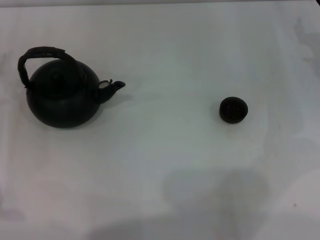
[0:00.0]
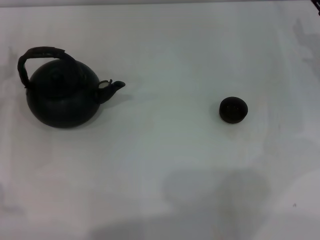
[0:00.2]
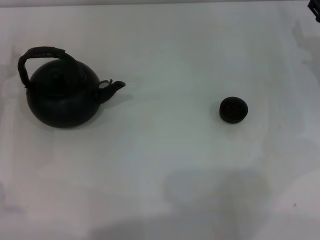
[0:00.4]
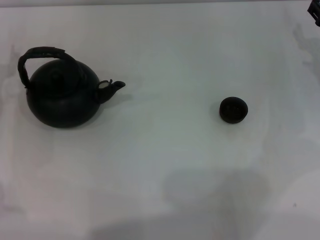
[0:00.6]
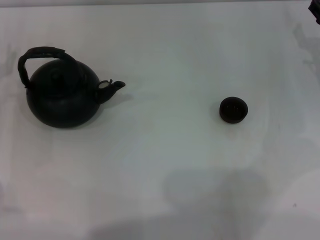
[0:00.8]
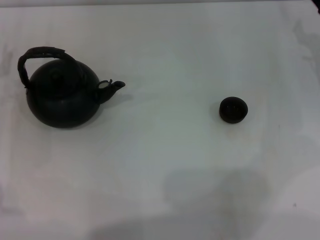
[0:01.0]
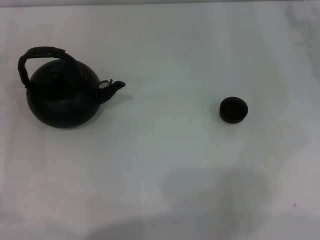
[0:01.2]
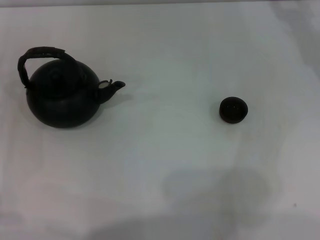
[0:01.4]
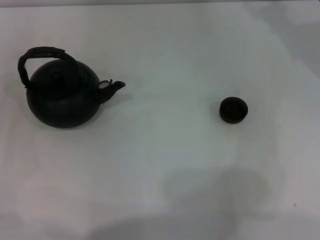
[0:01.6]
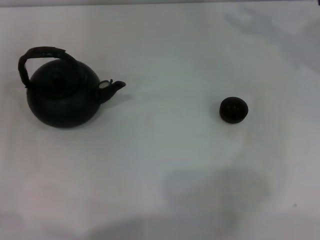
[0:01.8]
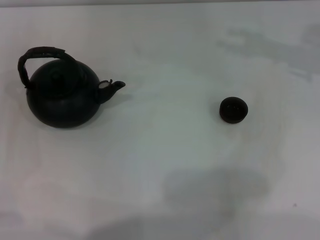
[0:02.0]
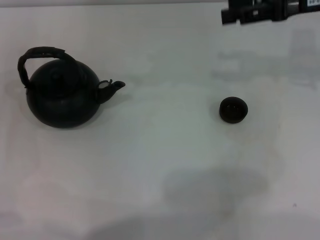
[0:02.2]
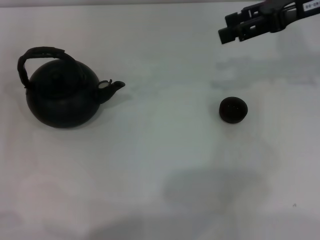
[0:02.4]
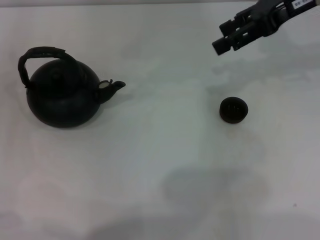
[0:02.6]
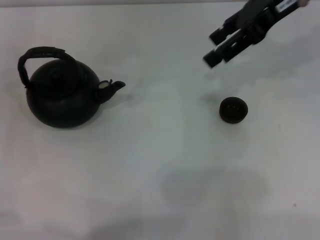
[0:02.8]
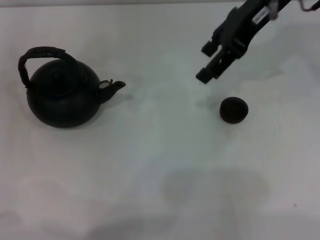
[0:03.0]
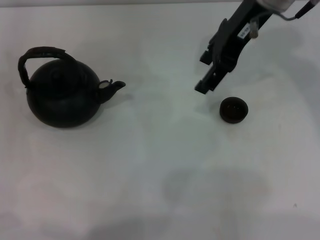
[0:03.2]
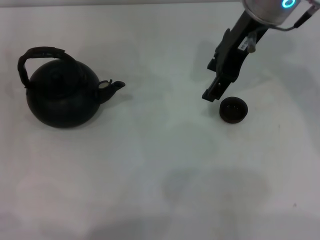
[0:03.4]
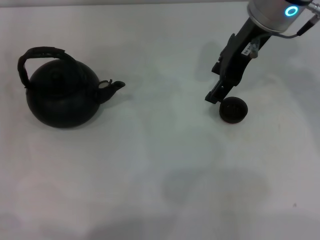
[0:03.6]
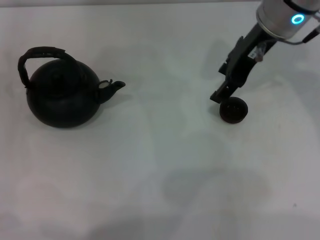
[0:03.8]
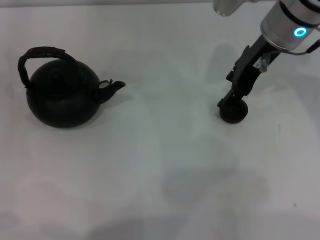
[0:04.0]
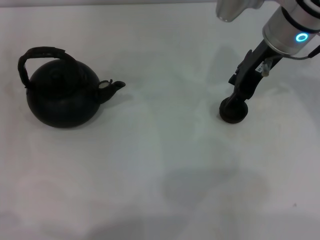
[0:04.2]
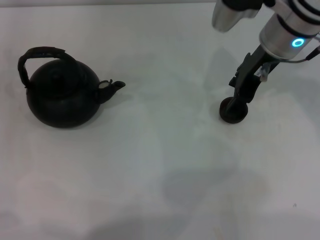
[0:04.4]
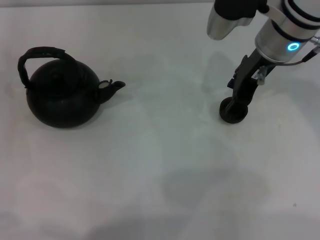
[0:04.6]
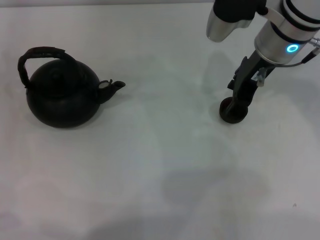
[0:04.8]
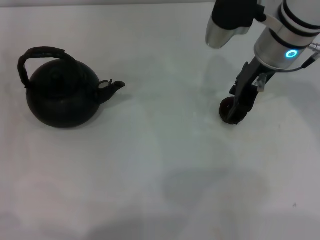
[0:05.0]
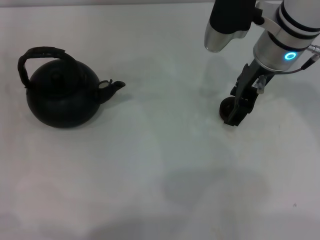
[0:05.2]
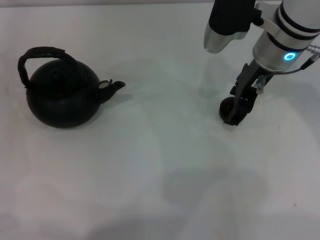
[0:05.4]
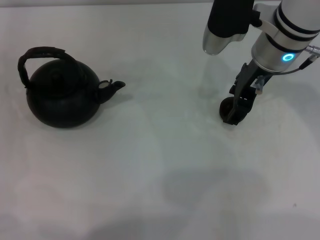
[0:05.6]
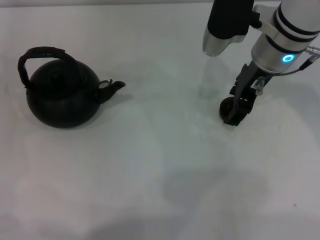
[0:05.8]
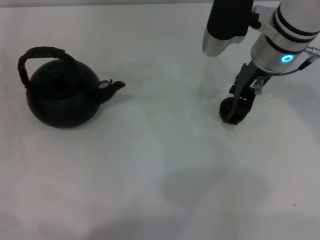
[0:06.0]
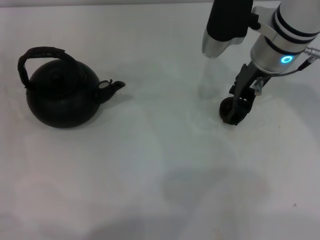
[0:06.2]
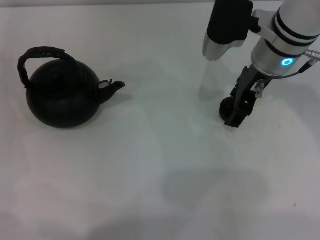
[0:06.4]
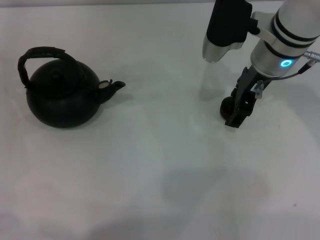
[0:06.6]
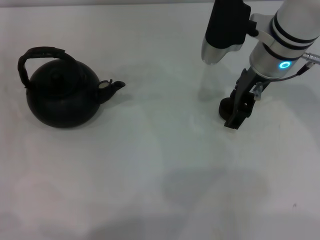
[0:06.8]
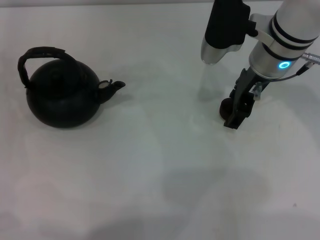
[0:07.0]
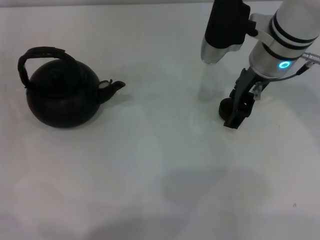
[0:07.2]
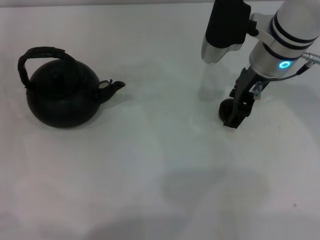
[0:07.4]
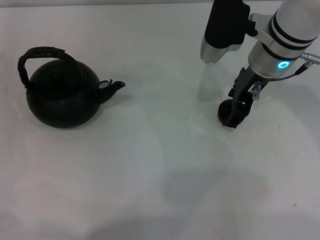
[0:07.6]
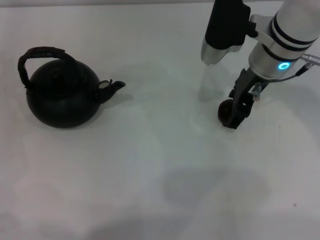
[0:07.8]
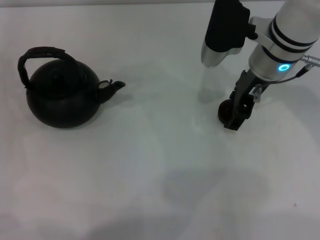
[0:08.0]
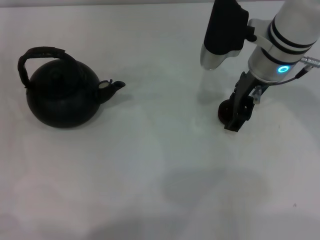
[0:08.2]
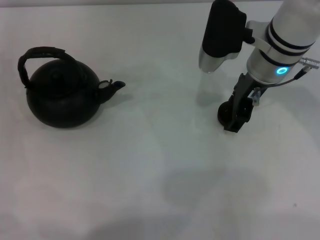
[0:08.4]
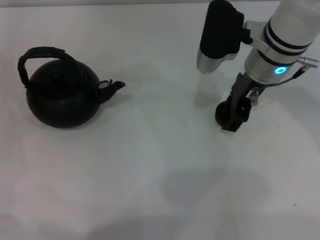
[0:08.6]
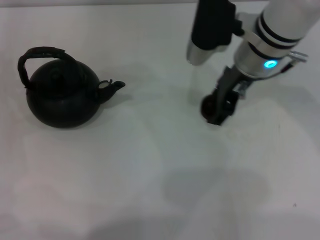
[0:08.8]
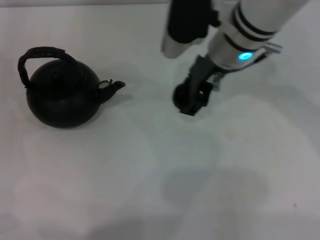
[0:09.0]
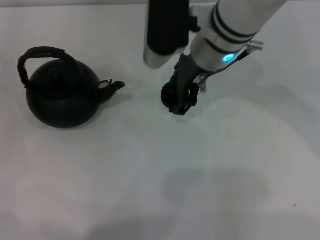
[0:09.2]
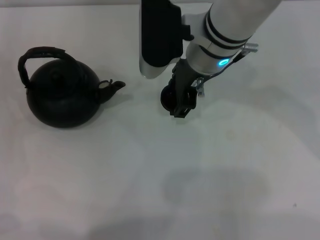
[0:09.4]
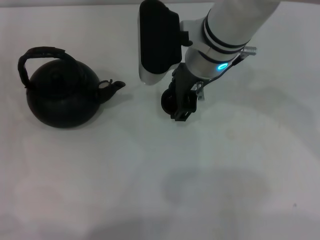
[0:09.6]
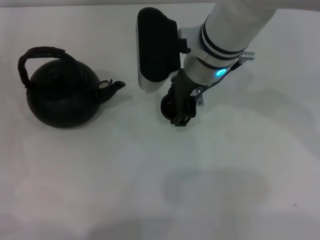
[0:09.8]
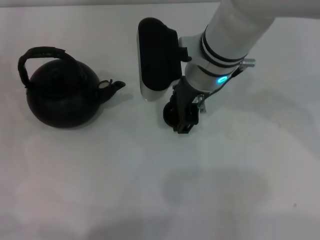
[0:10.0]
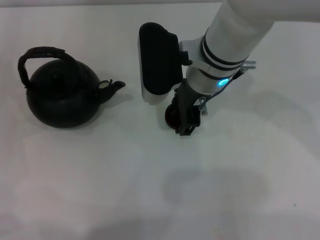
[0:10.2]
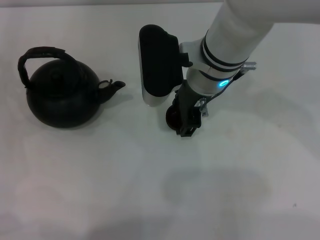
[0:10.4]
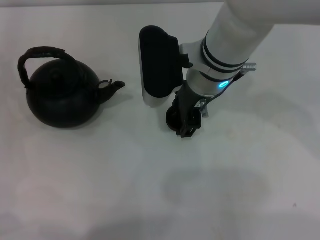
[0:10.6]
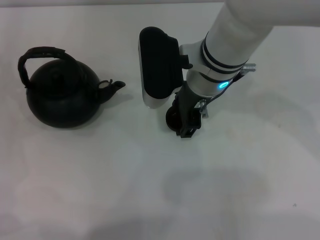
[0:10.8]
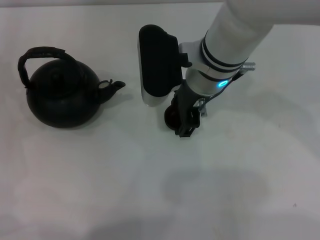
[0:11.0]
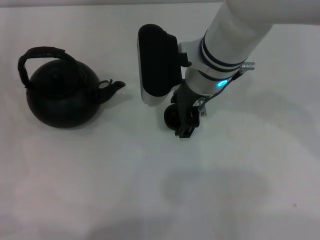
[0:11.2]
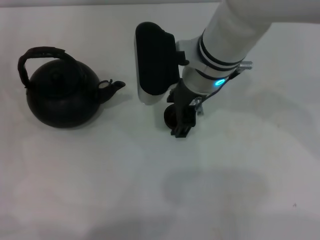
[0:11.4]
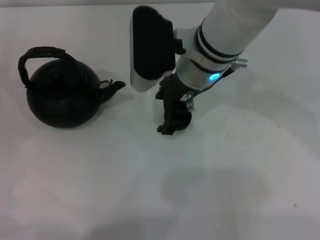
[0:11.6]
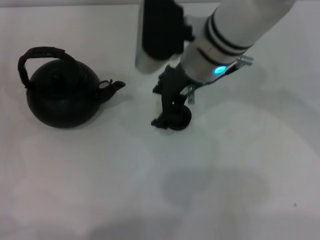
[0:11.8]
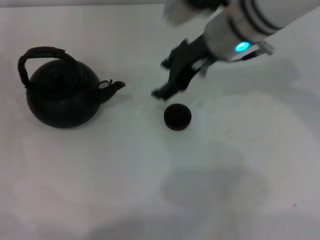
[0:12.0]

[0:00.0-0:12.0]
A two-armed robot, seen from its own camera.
Task of the whole recording: Grasp the handle of the teapot with one hand and pour tea into the teacup.
Step, 0:00.0 to 0:08.8: Pick up the teacup with the right gripper.
Step, 0:09.0 to 0:11.6: Place the teacup in the center of view with the right gripper.
0:01.6 to 0:03.0: The right gripper travels to the left and upward by roughly 15 cm.
0:03.0 to 0:04.4: The right gripper goes some 10 cm downward.
0:04.4 to 0:06.0: The grippers make only small movements.
0:06.0 to 0:07.6: Neither gripper changes place.
0:07.6 to 0:09.0: The right gripper travels to the left by some 5 cm.
0:09.0 to 0:10.4: There are only small adjustments of the grippers.
0:10.4 to 0:12.0: The right gripper moves roughly 5 cm.

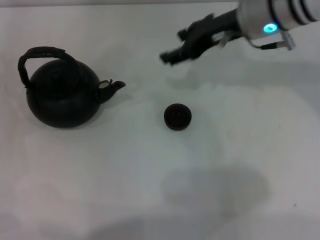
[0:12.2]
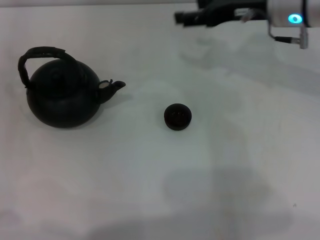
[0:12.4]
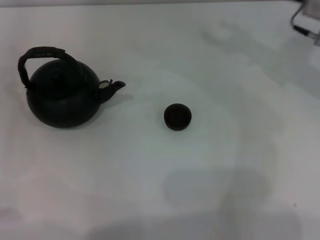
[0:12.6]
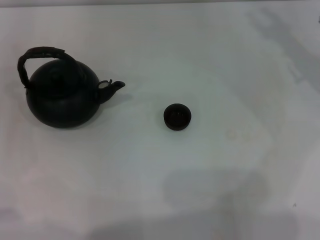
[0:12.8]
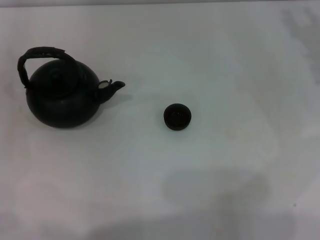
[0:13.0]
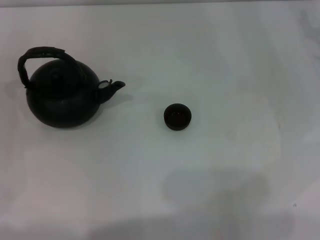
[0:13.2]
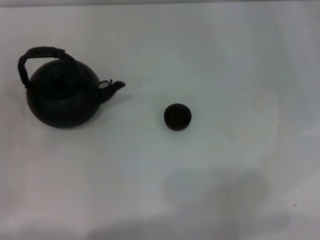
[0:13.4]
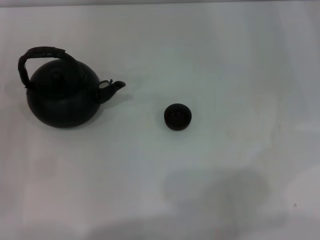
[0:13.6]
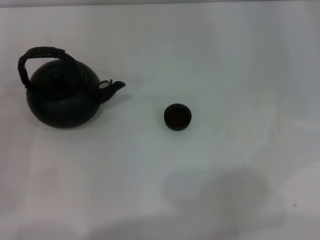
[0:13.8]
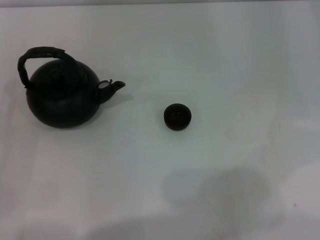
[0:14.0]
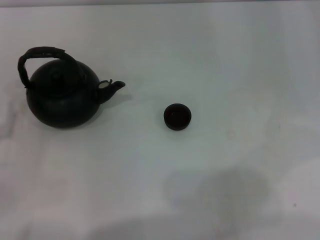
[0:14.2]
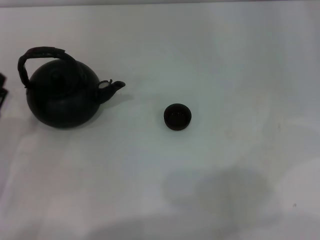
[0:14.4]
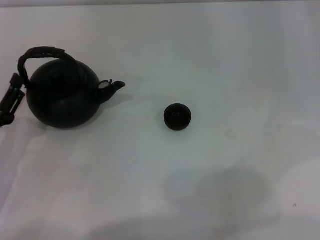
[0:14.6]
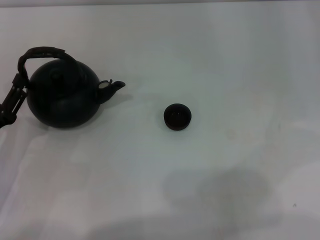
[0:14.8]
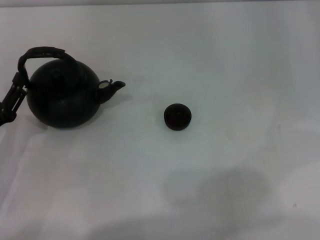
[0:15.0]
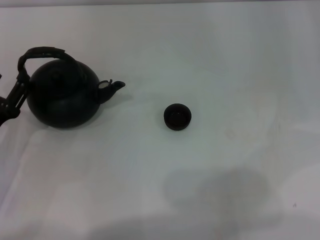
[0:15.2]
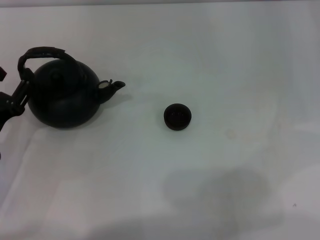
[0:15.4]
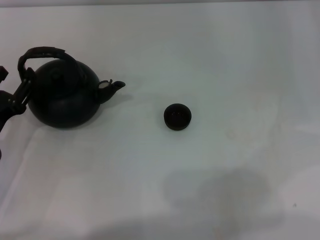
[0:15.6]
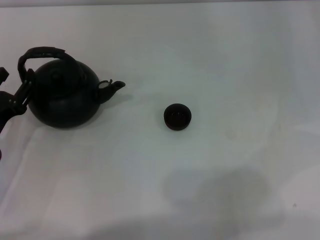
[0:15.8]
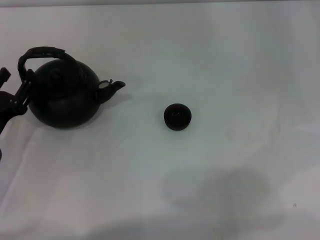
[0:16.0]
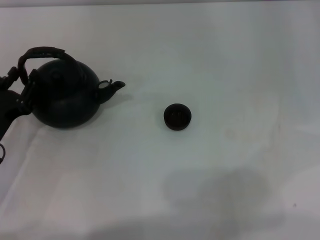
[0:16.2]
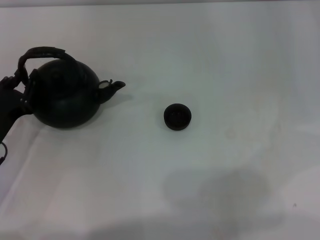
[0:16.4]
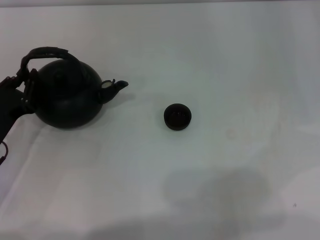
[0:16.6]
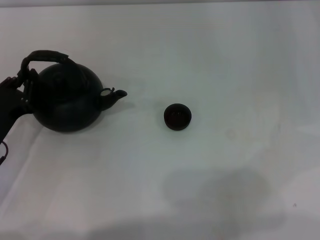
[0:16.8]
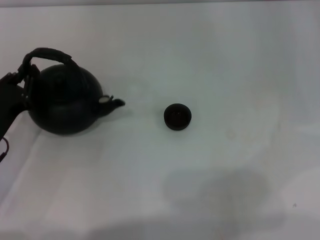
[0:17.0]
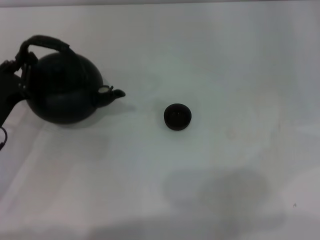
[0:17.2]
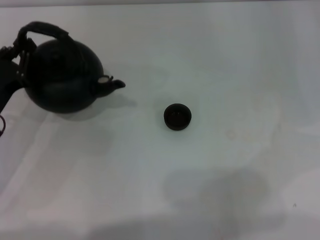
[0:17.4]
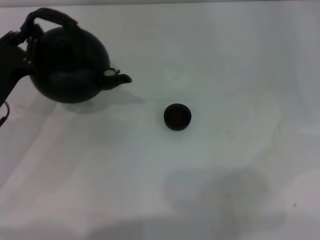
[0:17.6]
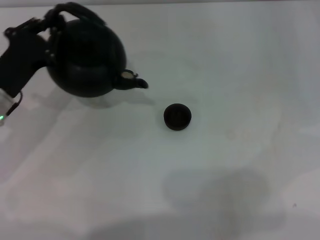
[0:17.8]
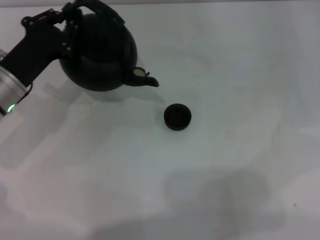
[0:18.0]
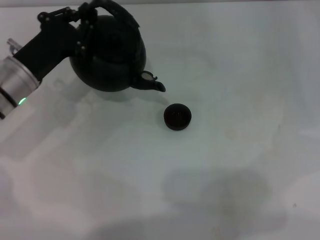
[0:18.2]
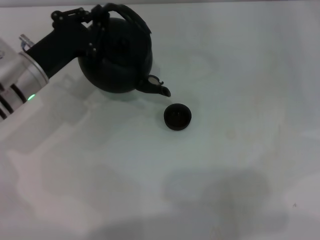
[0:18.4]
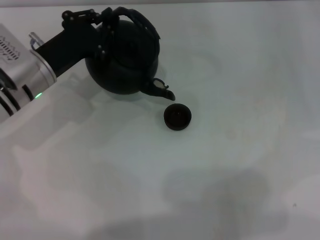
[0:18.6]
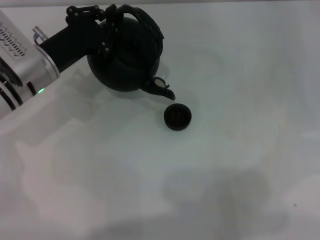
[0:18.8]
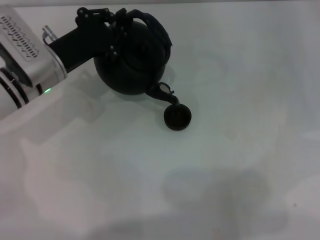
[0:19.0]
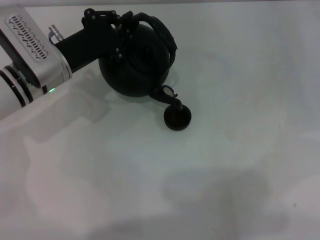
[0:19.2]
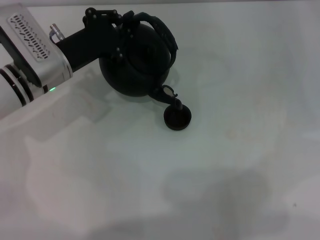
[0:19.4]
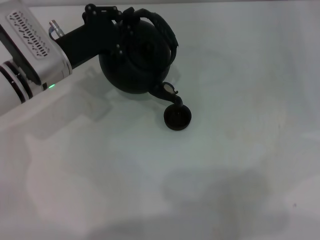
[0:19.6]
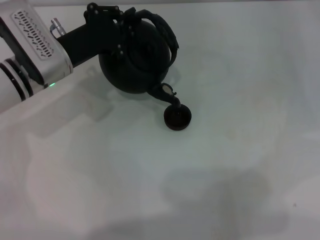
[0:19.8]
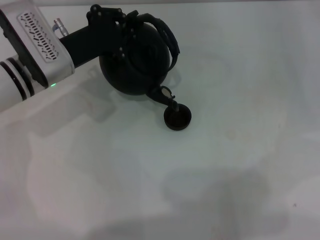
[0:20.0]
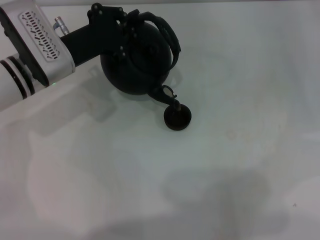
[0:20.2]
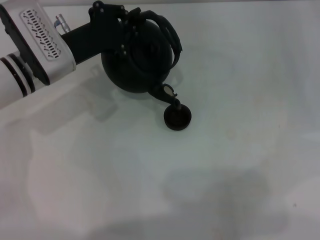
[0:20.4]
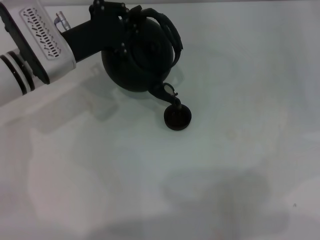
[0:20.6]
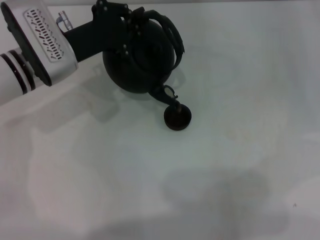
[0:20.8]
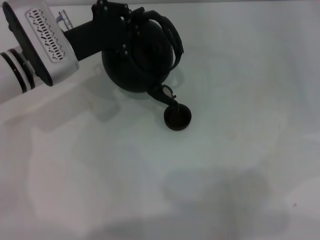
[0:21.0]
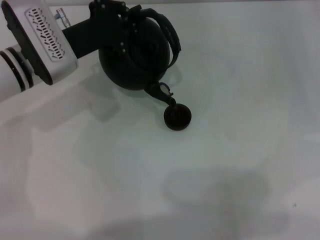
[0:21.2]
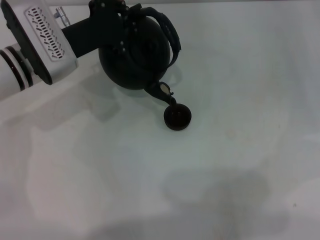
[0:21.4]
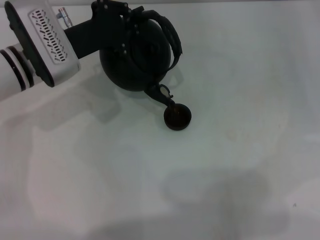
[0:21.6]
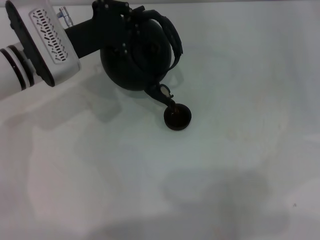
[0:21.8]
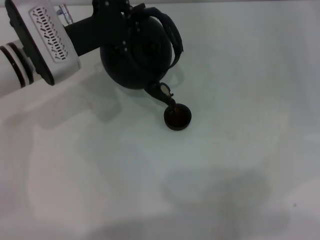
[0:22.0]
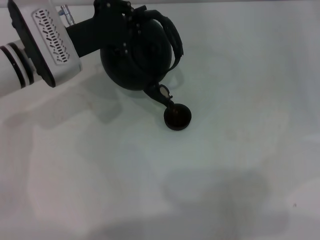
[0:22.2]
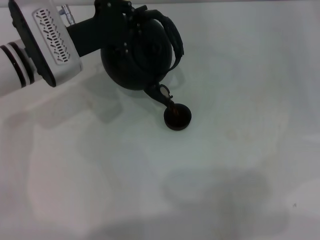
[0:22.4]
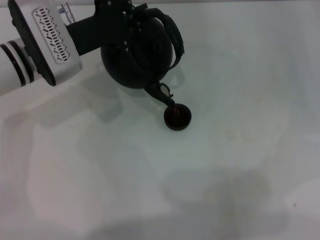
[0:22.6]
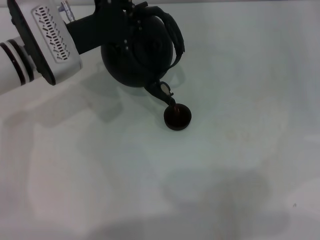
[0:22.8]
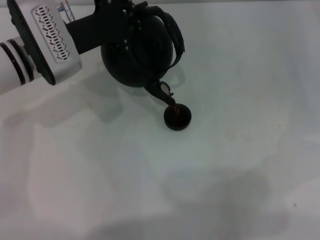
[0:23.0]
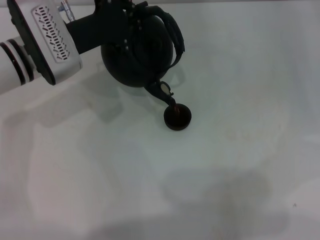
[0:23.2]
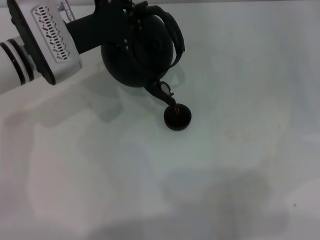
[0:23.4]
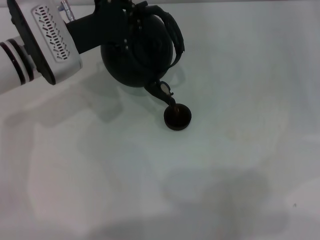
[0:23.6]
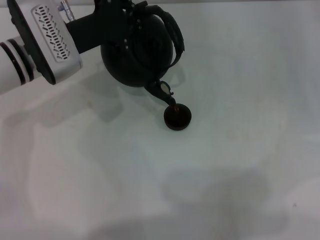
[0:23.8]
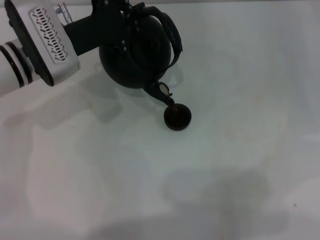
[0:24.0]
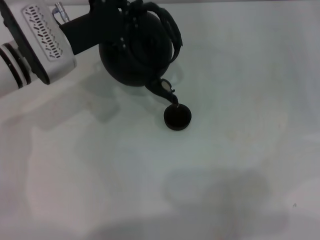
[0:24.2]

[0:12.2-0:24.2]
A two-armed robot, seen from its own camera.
Task of the whole recording: Grasp the handle of the teapot with one hand and pour tea into the teacup.
Step, 0:12.2 to 0:17.8: Pick up the teapot with the left gripper.
0:12.2 to 0:13.8: The left gripper goes some 10 cm backward. The right gripper is displaced to the right by roughly 20 cm.
0:13.8 to 0:15.2: The left gripper ends up approximately 5 cm from where it was.
0:15.2 to 0:16.6: The left gripper closes its fingers.
0:16.6 to 0:18.2: The left gripper travels forward, upward and to the right by some 10 cm.
0:18.2 to 0:19.8: The left gripper changes place by approximately 5 cm.
0:19.8 to 0:22.6: There are only small adjustments of the grippers.
0:22.6 to 0:24.2: Both grippers stay put.
